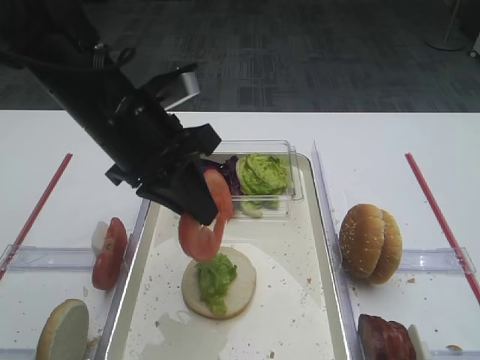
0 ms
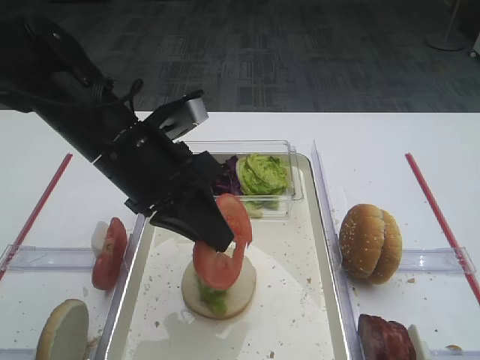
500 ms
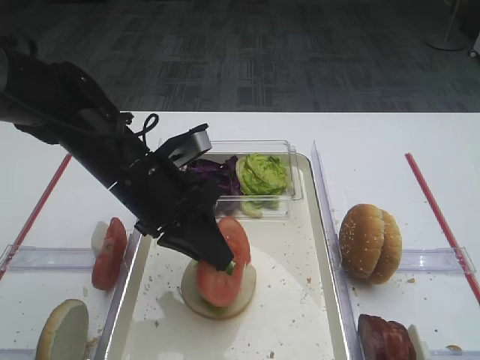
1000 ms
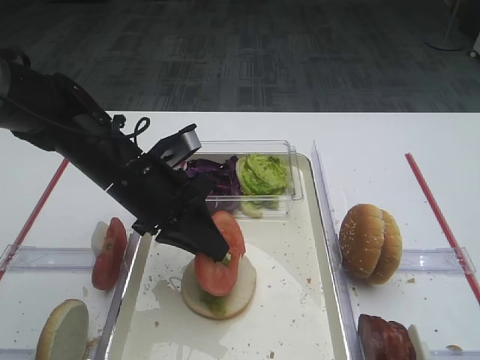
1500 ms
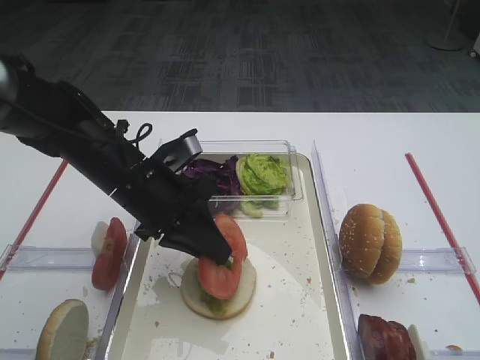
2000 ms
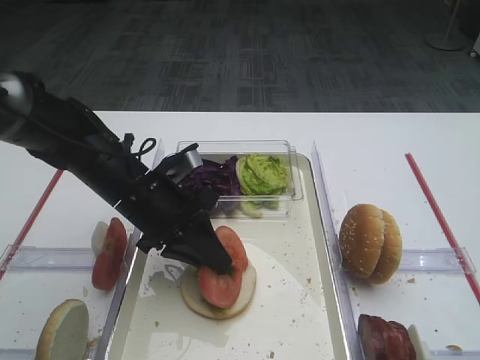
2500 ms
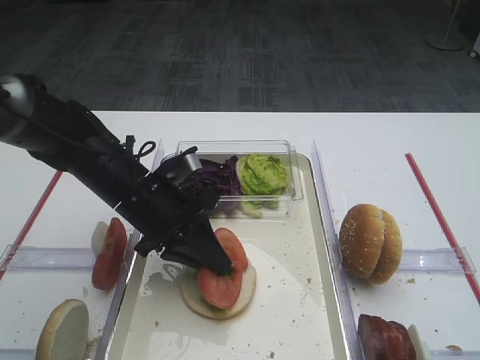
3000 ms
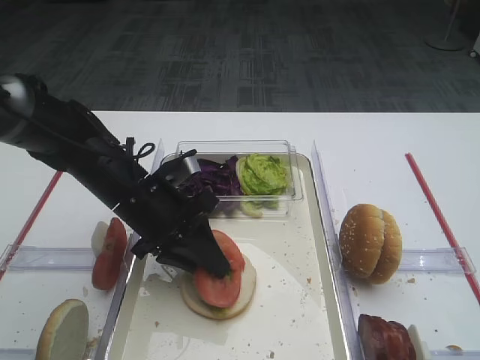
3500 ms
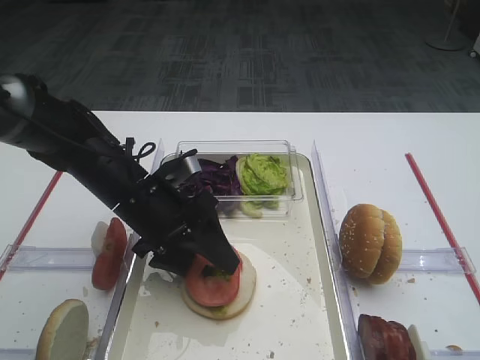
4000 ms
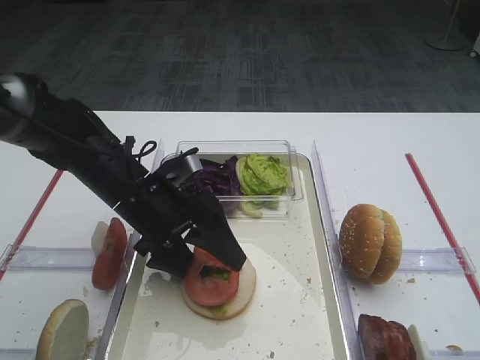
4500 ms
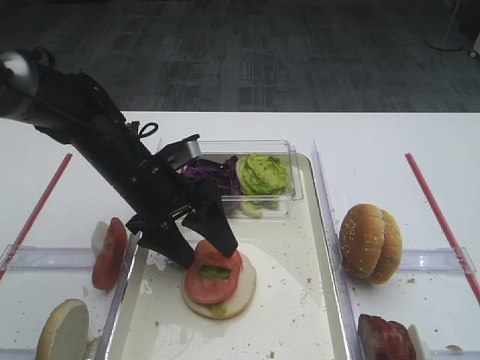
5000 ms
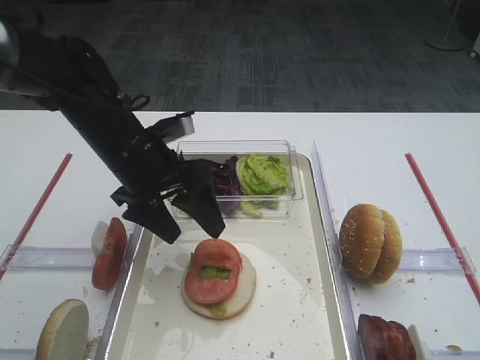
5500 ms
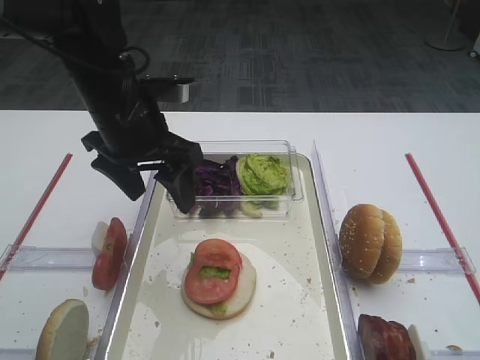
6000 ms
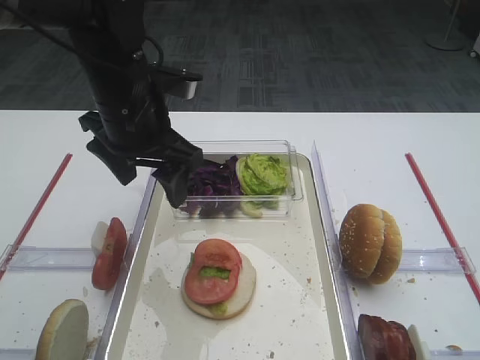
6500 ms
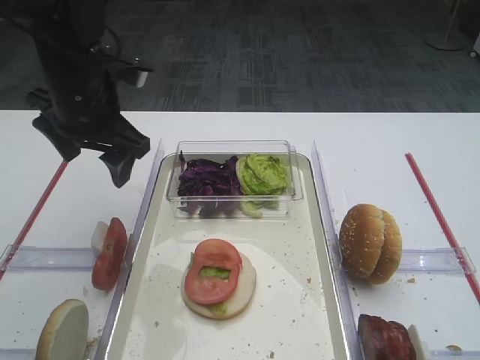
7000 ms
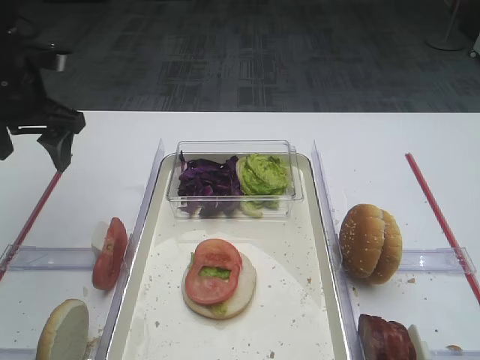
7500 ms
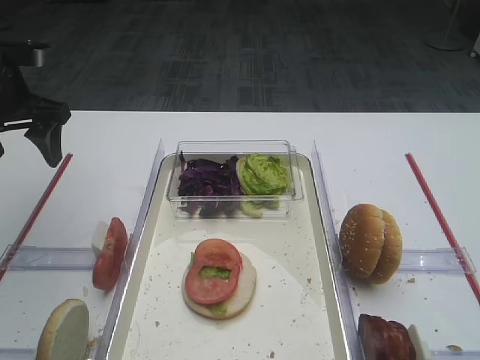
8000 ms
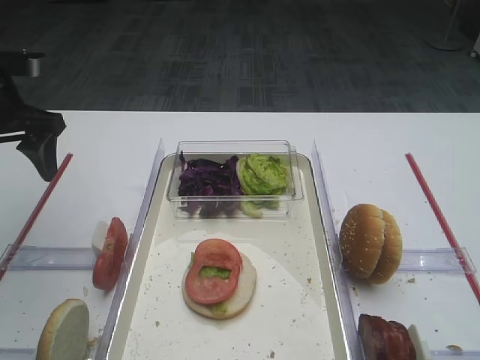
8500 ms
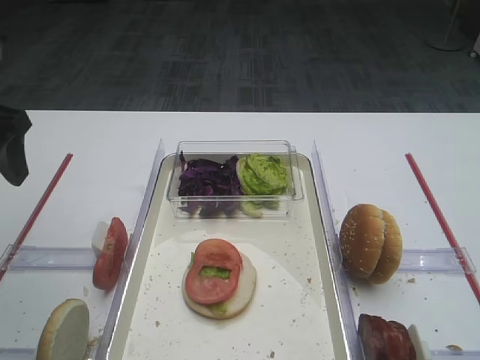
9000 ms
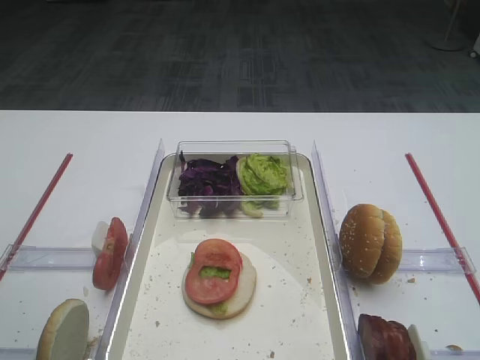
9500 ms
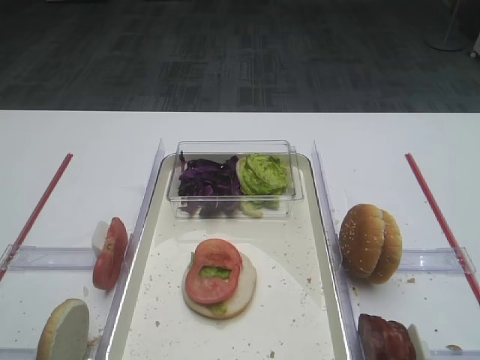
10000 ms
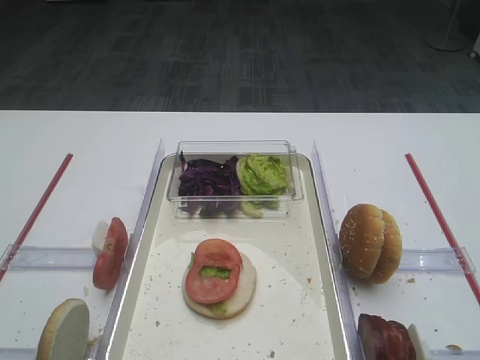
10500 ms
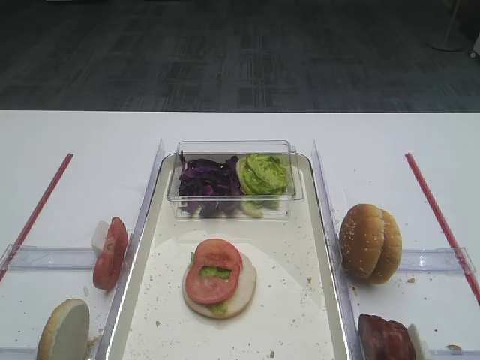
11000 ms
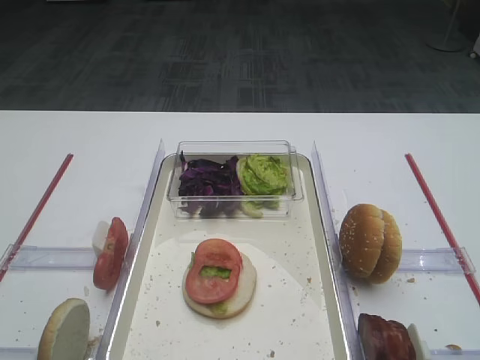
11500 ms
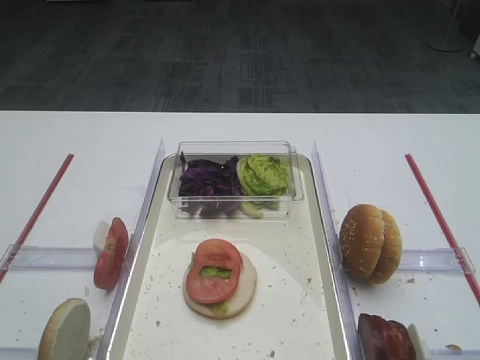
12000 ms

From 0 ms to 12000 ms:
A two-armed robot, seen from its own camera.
Step, from 0 ms to 6000 ms: Place the tomato slice on the lettuce leaf with the left gripper.
From 0 ms to 2000 ms: The left gripper moves downward, approximately 10 cm.
From 2000 ms to 4000 ms: The left gripper opens its fingers.
From 4000 ms to 6000 ms: The left gripper goes about 10 cm upward.
From 6000 ms to 8000 ms: The left gripper is displaced to the left by approximately 15 cm.
From 8000 ms to 10000 ms: The left gripper is displaced backward by approximately 30 cm.
From 10000 ms to 12000 ms: The left gripper moves backward, about 10 cm.

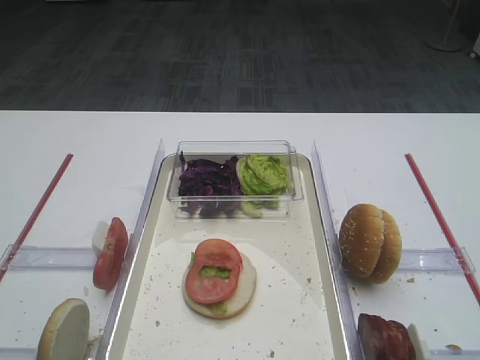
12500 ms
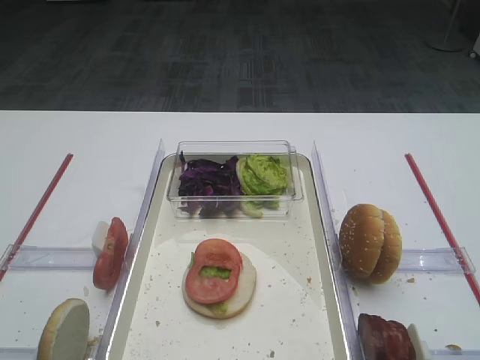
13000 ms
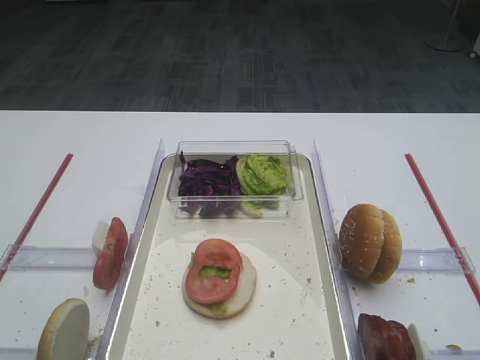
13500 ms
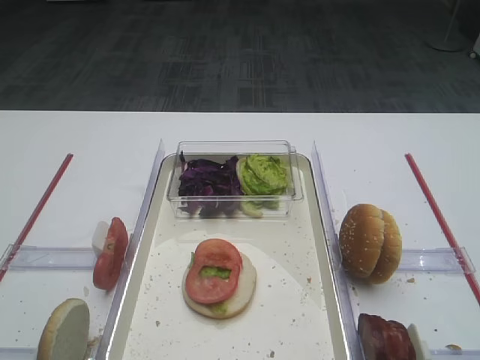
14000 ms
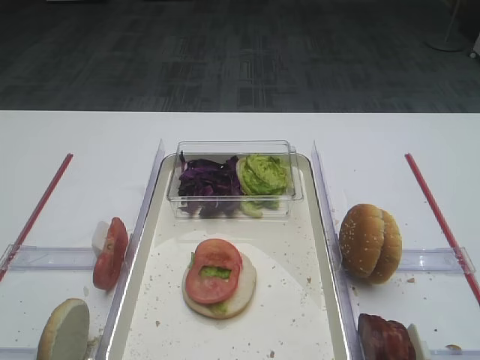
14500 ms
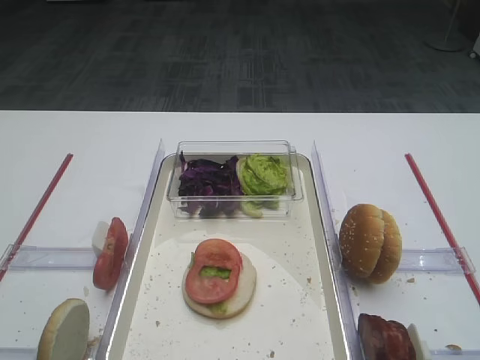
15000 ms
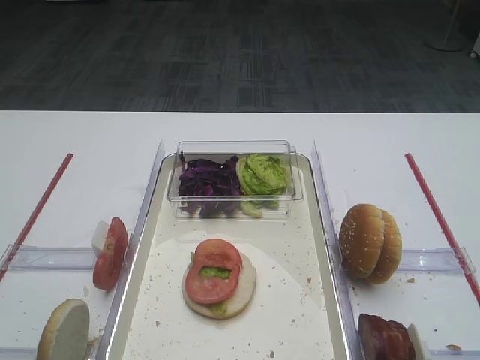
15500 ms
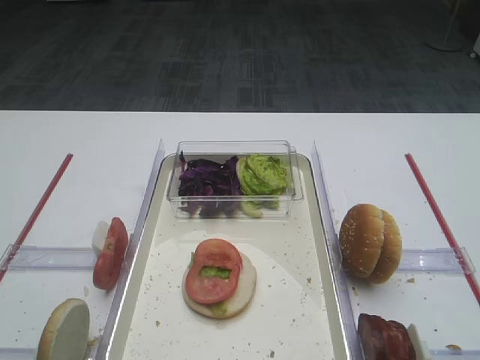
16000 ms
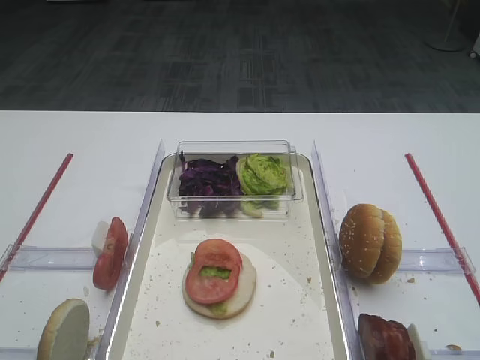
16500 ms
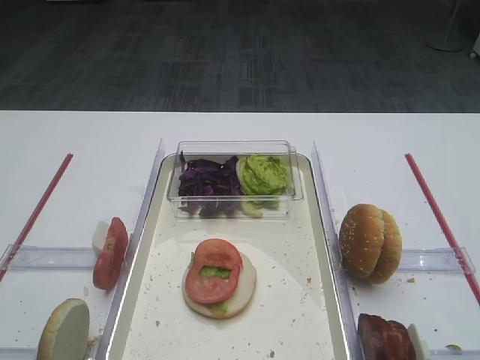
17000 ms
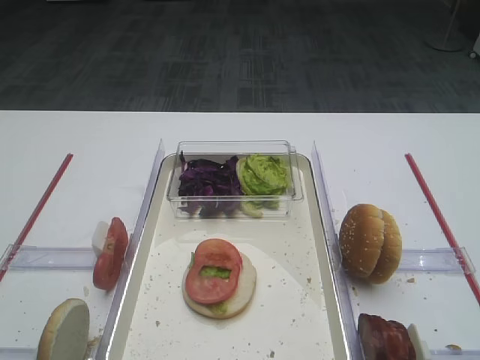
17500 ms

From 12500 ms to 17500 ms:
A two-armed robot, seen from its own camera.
From 12500 ms to 17500 ms: Both grippers stay about where they are.

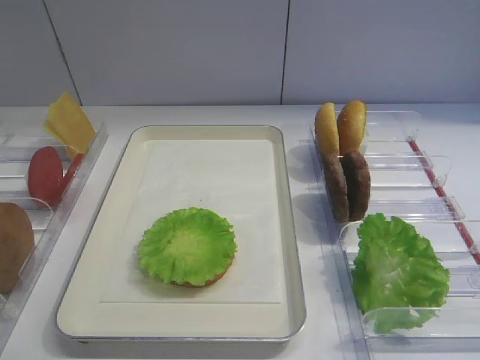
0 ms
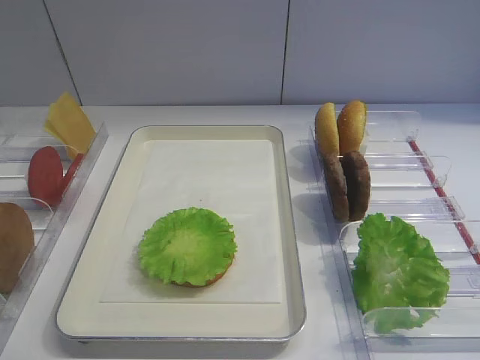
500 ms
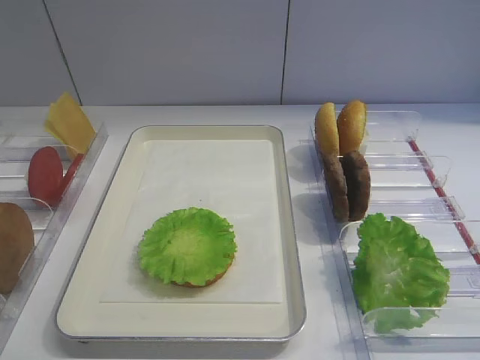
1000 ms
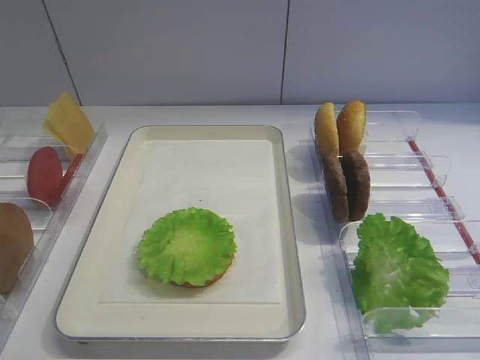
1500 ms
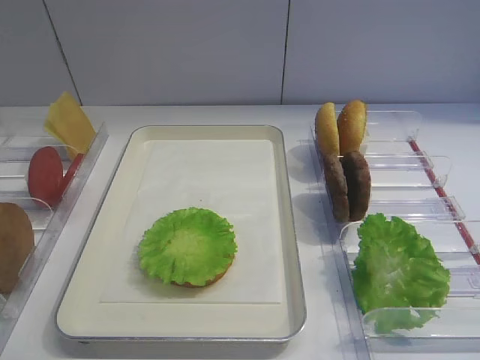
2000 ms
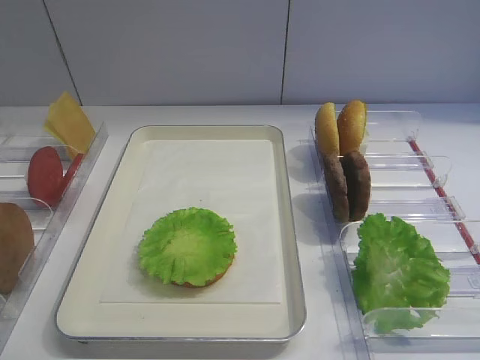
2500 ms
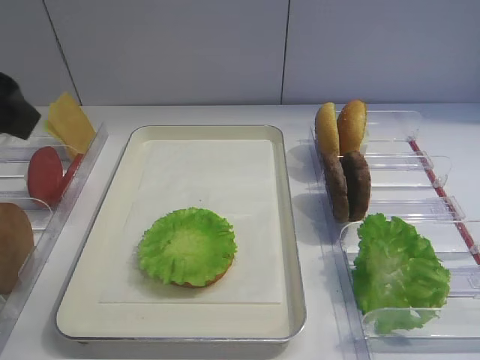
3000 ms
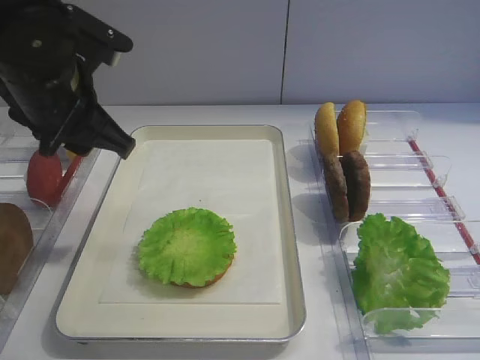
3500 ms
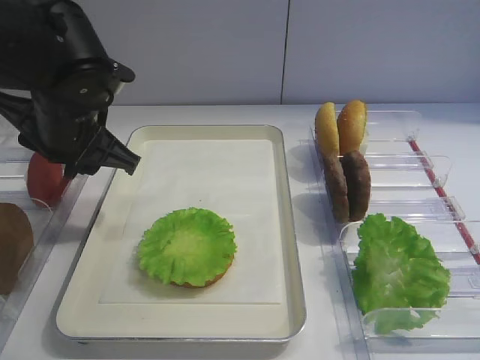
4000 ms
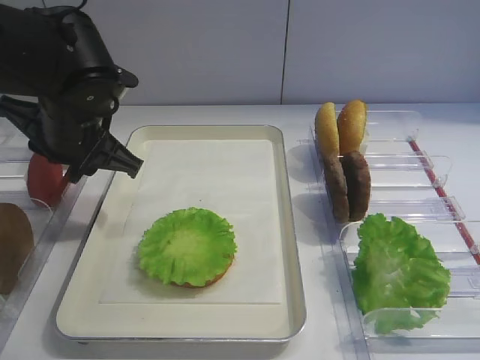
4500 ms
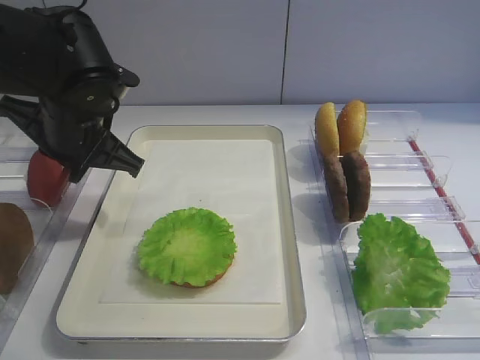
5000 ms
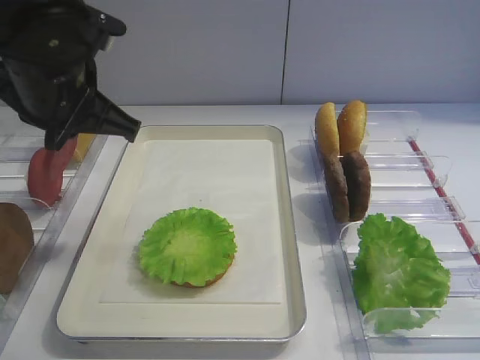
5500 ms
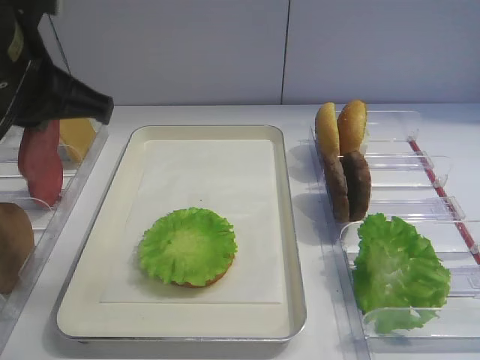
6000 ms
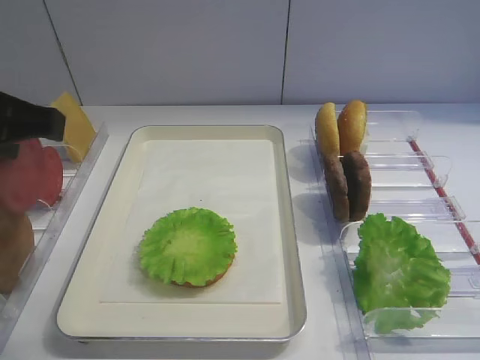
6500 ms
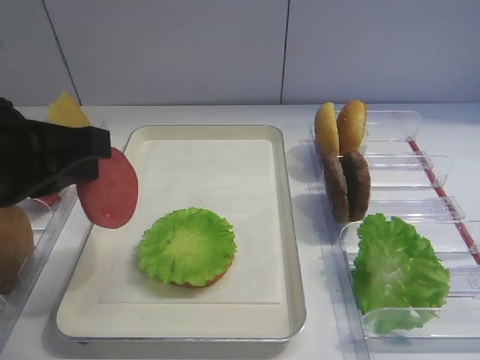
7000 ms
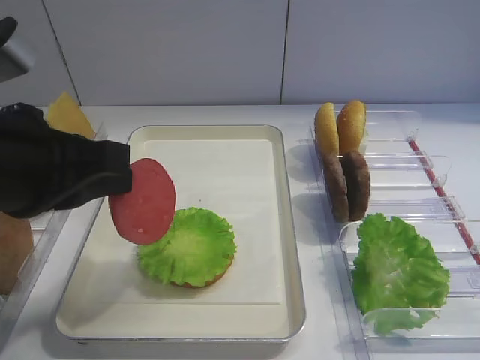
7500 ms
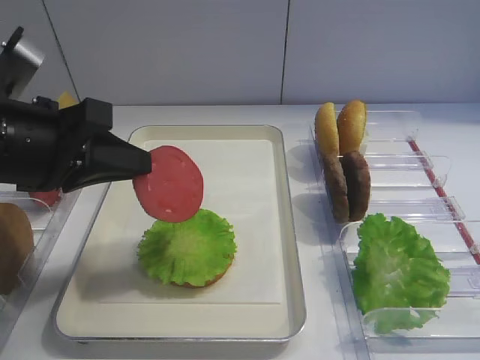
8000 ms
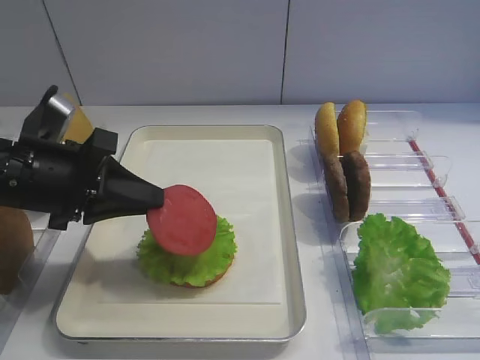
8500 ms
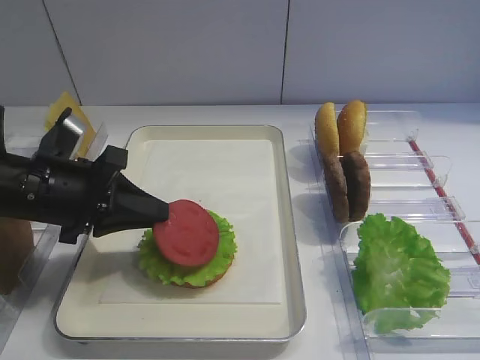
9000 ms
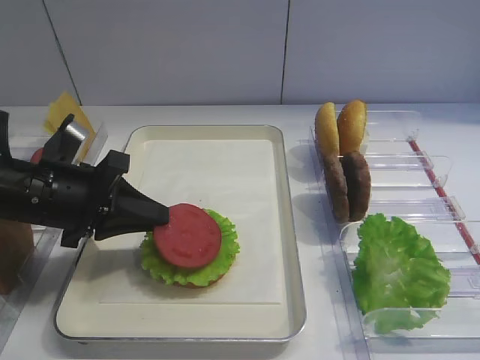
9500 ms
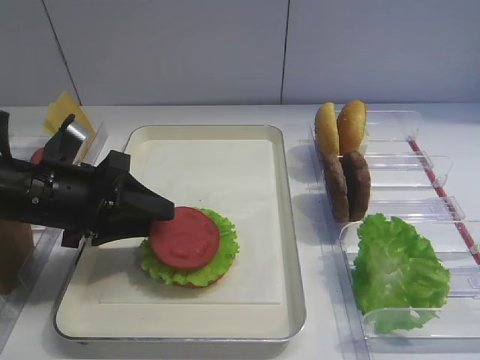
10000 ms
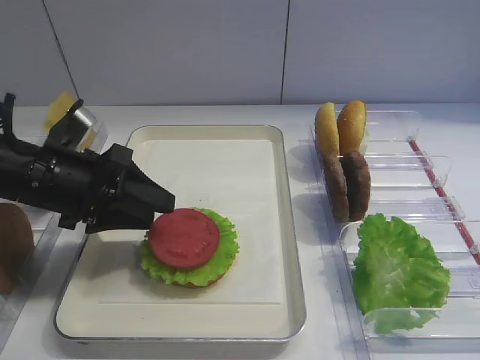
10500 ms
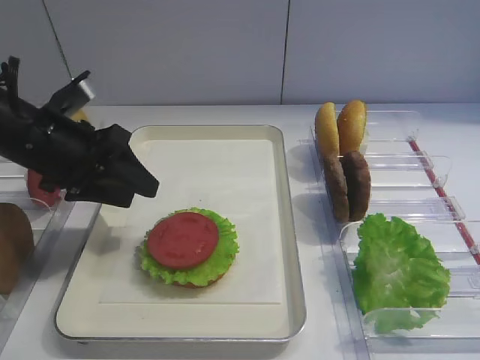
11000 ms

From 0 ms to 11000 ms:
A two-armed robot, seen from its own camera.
Step, from 0 ms to 5500 ms: Pick up the tomato slice with the left gripper.
Step, from 6000 ms to 10500 ms: Place the tomato slice on the lettuce leaf with the left gripper.
From 2000 ms to 3500 ms: The left gripper shifts roughly 30 cm forward and to the right.
From 3500 ms to 5500 ms: The left gripper closes.
From 5500 ms to 7500 ms: The left gripper is displaced backward by some 15 cm.
From 7500 ms to 9000 ms: The left gripper heads downward and forward, covering some 15 cm.
From 9000 ms to 11000 ms: The left gripper opens its fingers.
